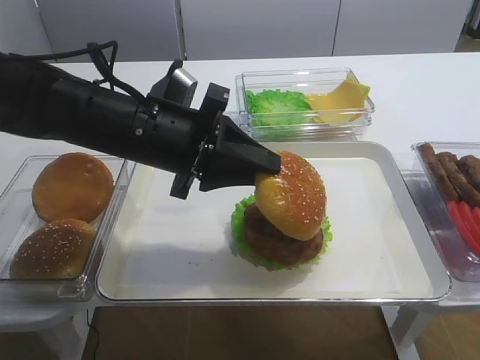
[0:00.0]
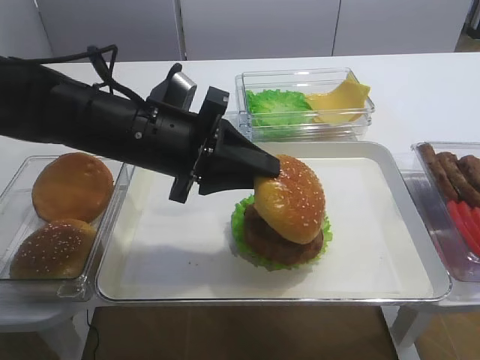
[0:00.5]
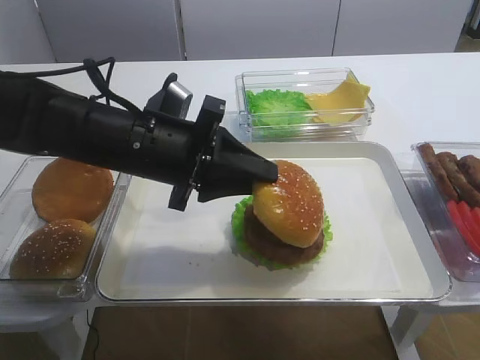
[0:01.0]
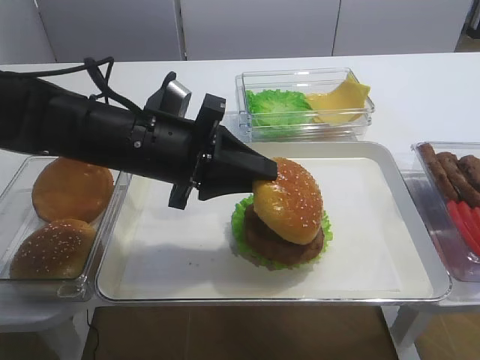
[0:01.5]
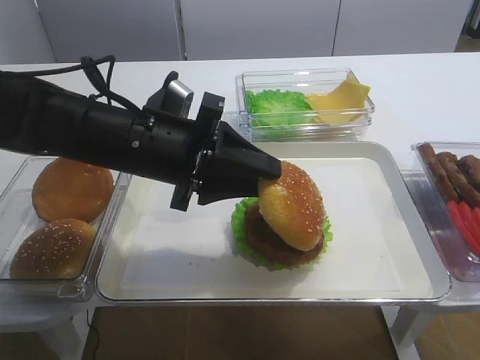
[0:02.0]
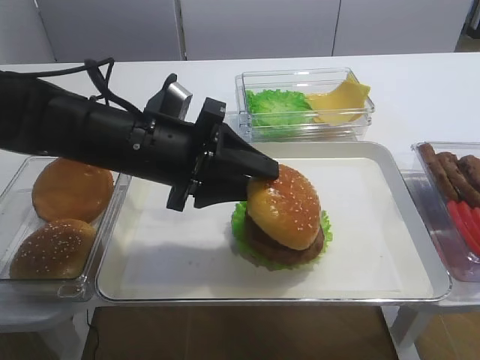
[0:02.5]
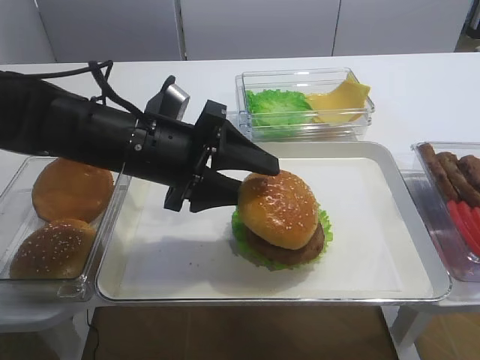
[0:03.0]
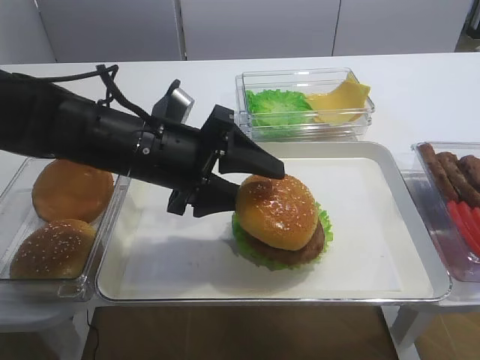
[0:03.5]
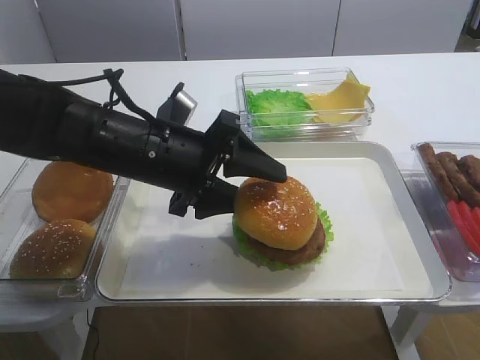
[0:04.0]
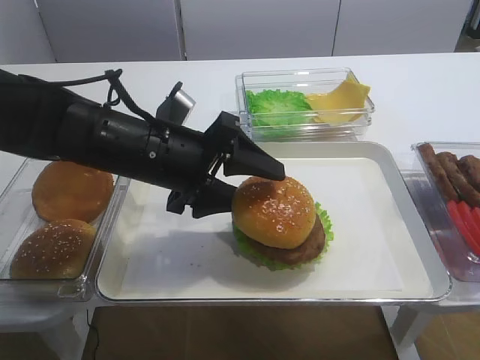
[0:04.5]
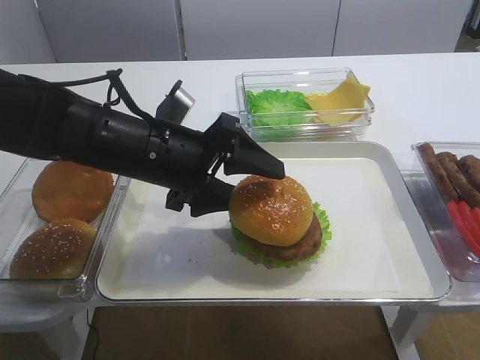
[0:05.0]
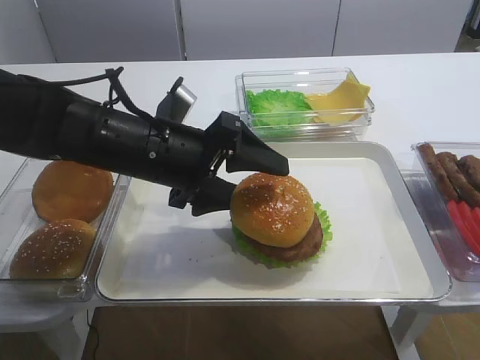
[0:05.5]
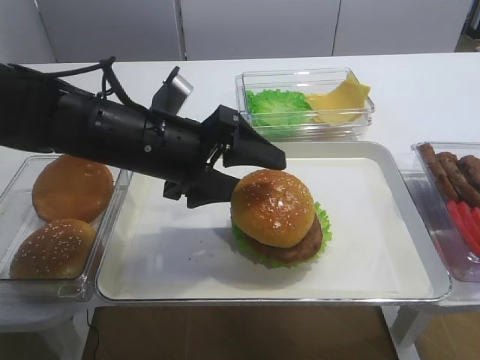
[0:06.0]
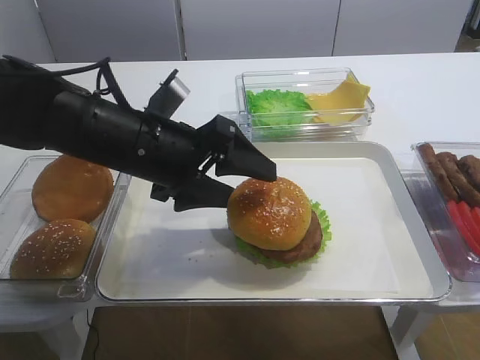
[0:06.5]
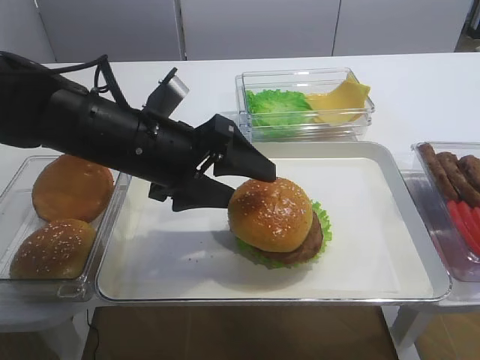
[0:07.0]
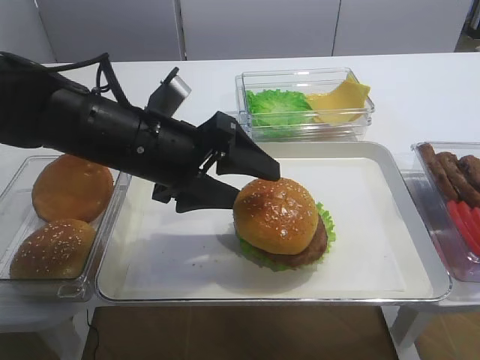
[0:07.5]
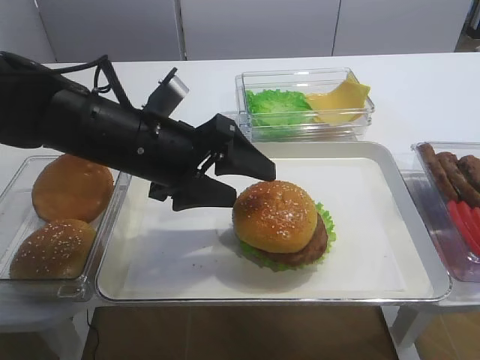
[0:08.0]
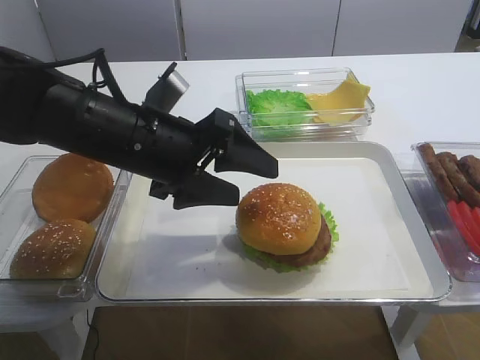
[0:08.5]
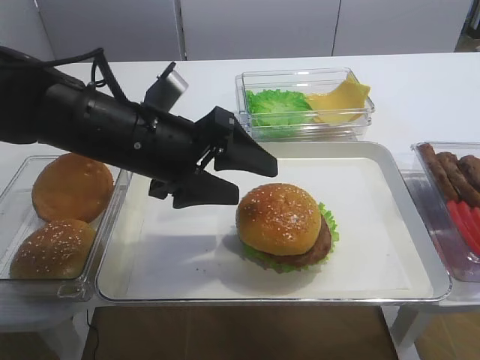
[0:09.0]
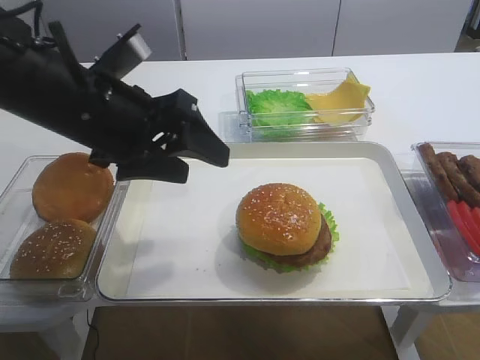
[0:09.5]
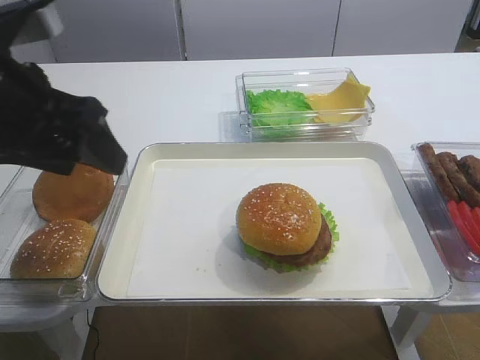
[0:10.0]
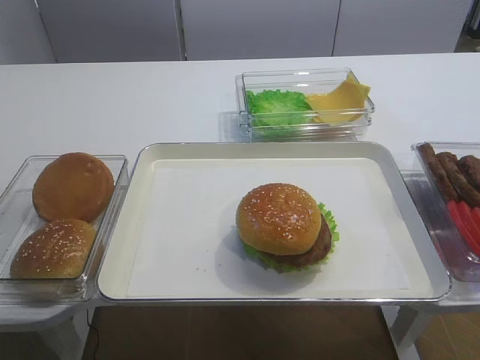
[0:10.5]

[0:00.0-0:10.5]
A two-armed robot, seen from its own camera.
Step, 0:00.0 to 0:09.5: Place the hamburger lid on the cutlet slice with the left gripper.
0:00.0 to 0:02.0: Both grippers stay about where they are.
0:02.0 to 0:04.0: The left gripper opens its fingers.
0:04.0 to 0:06.5: The grippers make only small movements.
0:06.5 to 0:08.5: Both grippers stay put.
0:08.5 to 0:10.5: The left gripper moves backward, to the left and upward, roughly 25 cm.
